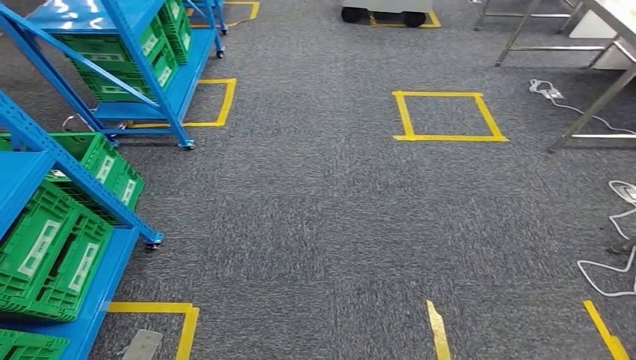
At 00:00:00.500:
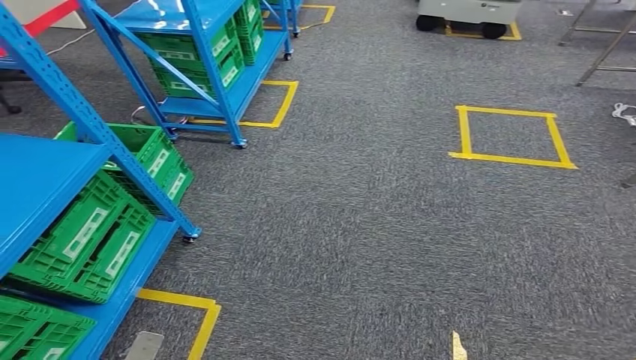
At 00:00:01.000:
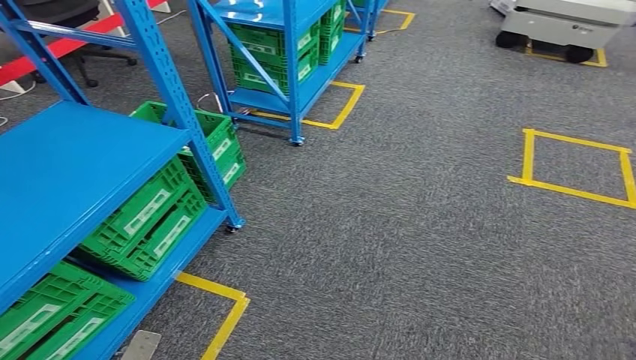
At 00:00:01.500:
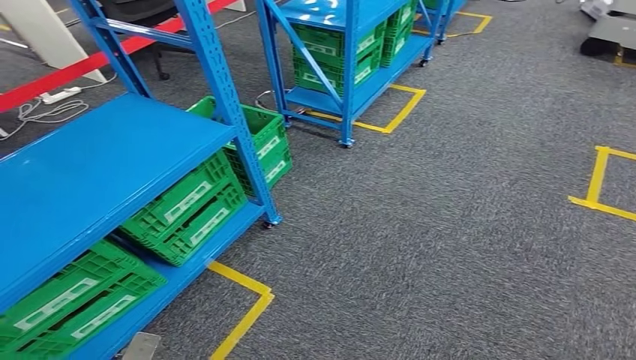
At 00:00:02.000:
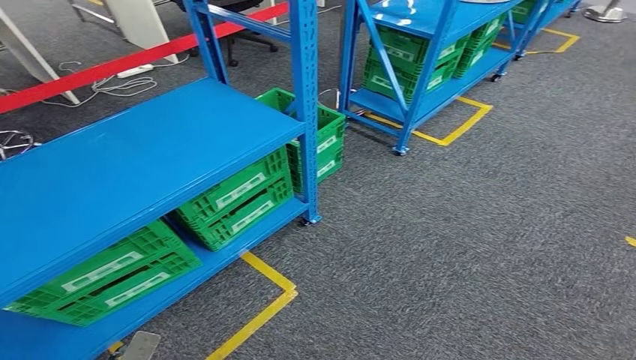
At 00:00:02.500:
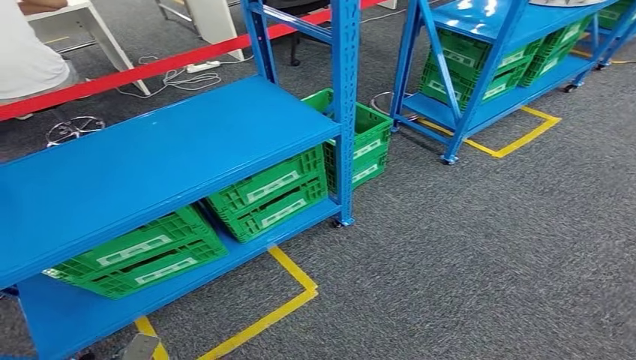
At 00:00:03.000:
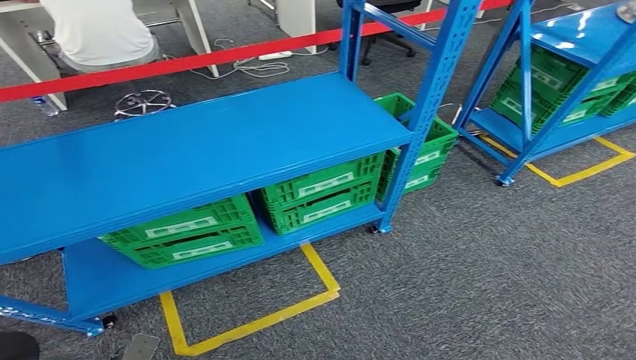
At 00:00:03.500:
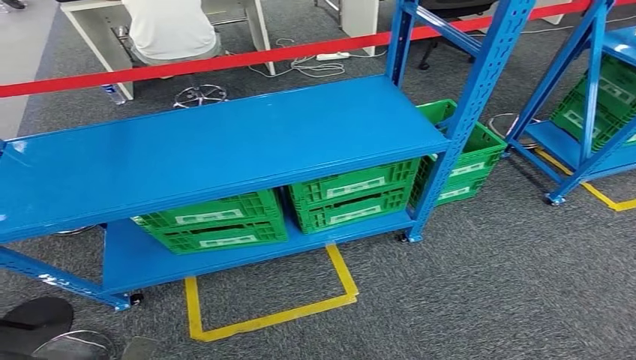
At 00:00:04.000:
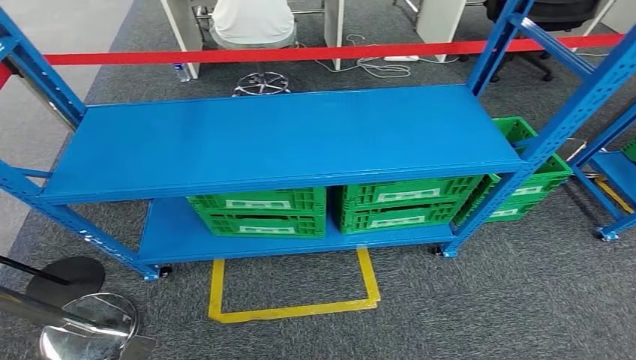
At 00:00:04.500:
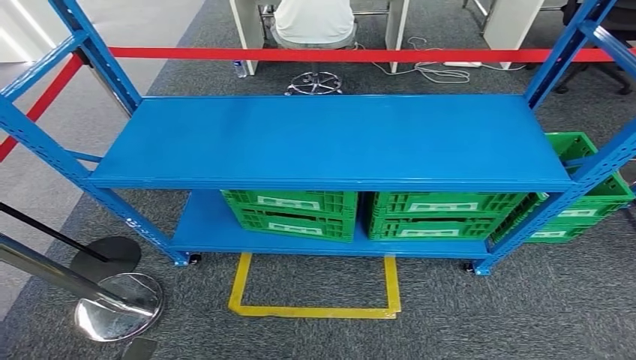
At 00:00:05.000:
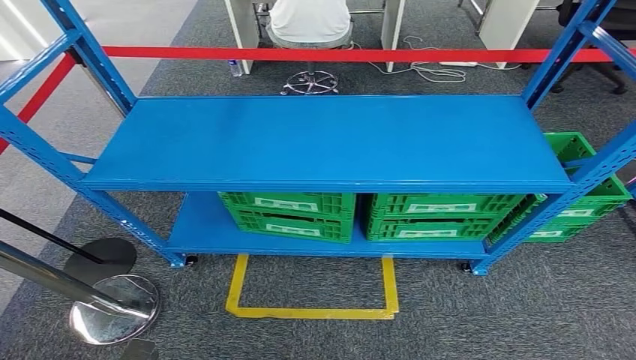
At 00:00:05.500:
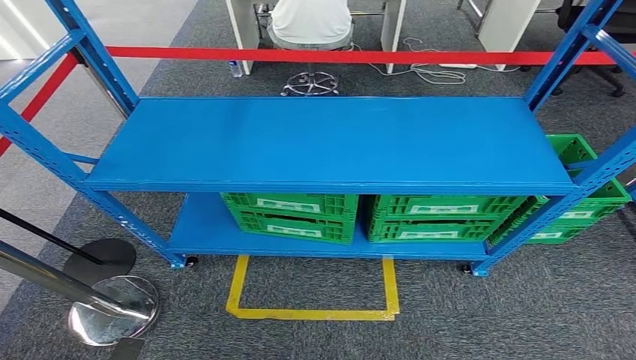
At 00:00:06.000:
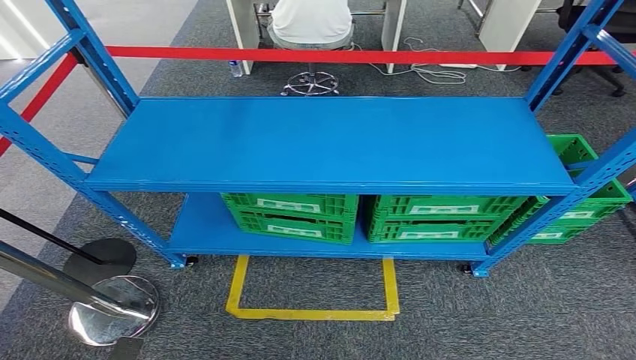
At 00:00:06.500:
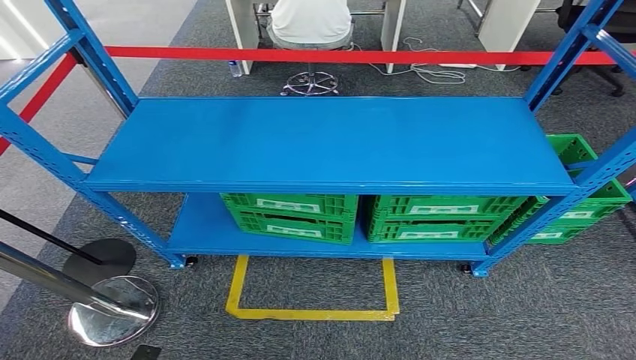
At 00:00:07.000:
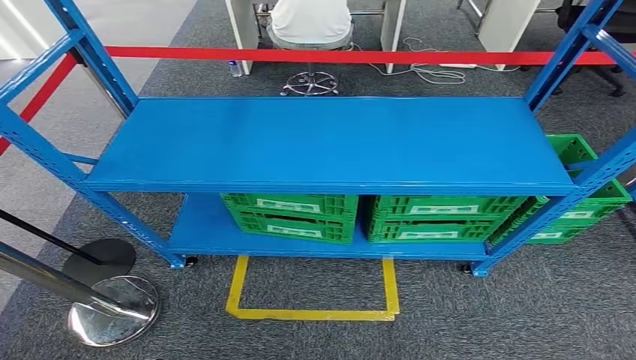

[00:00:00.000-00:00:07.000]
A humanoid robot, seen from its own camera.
Step, 00:00:00.000 to 00:00:06.500: Move to the initial position of the workbench.
00:00:05.000 to 00:00:07.000: The hands make only small movements.
